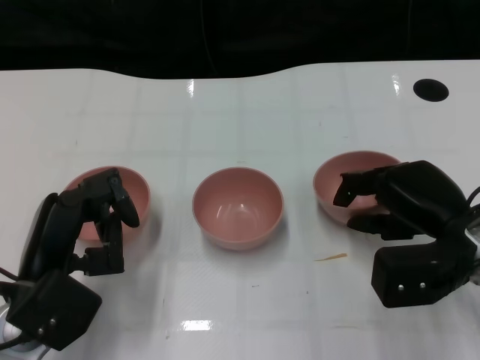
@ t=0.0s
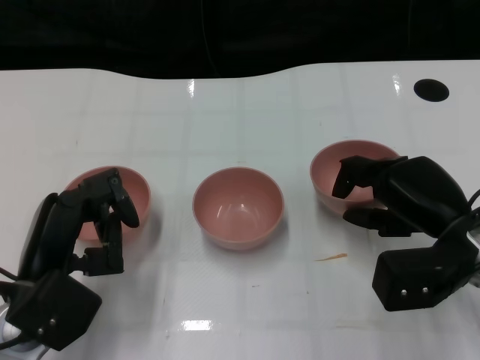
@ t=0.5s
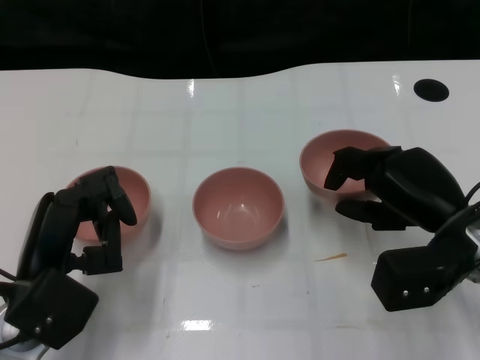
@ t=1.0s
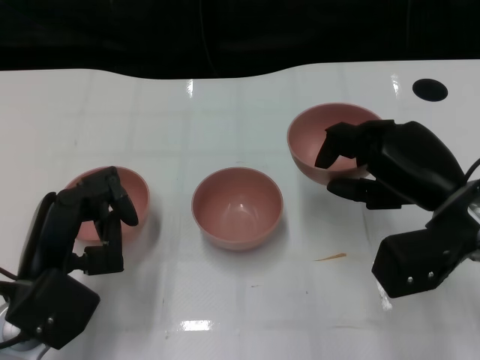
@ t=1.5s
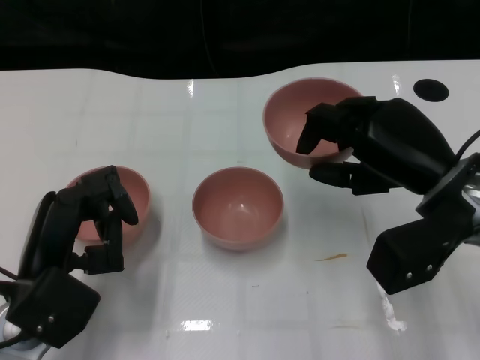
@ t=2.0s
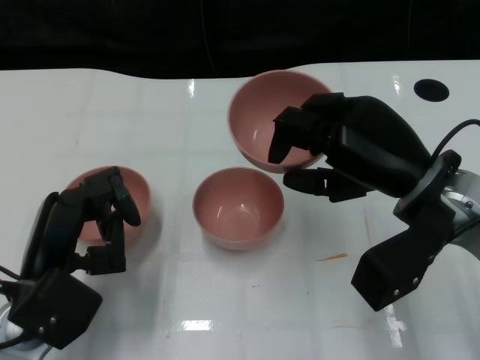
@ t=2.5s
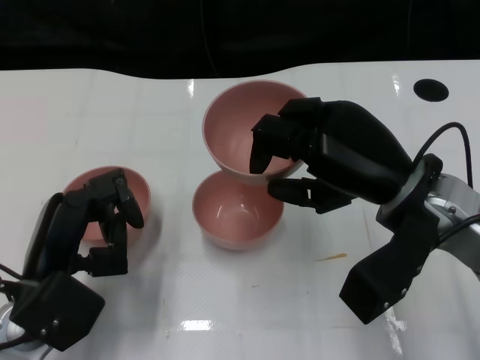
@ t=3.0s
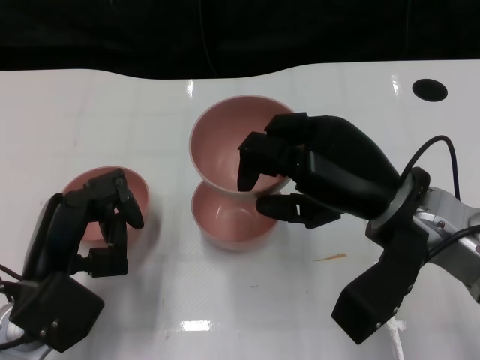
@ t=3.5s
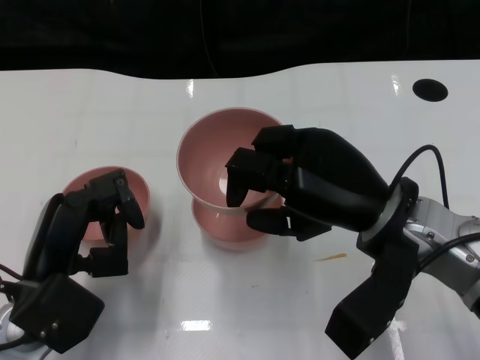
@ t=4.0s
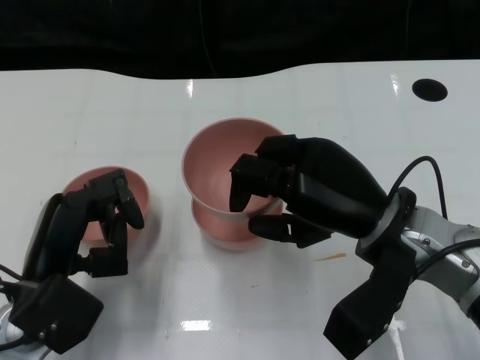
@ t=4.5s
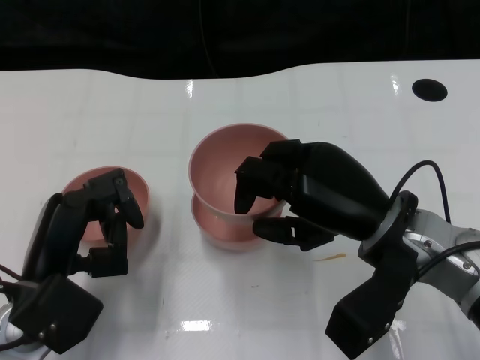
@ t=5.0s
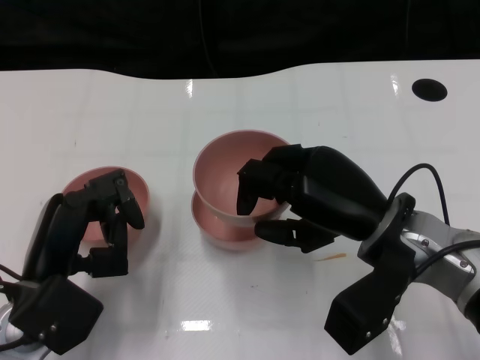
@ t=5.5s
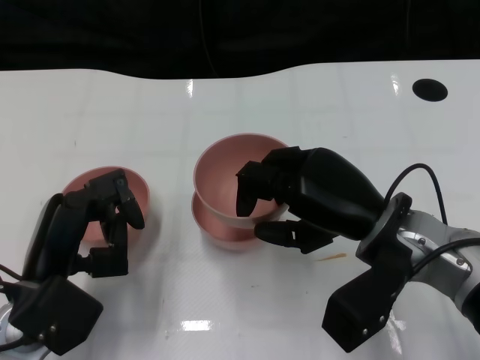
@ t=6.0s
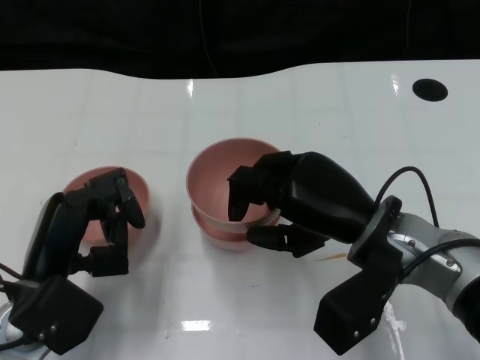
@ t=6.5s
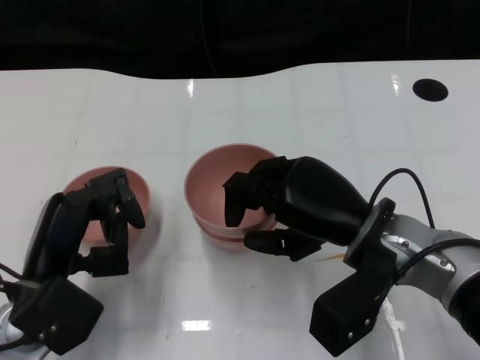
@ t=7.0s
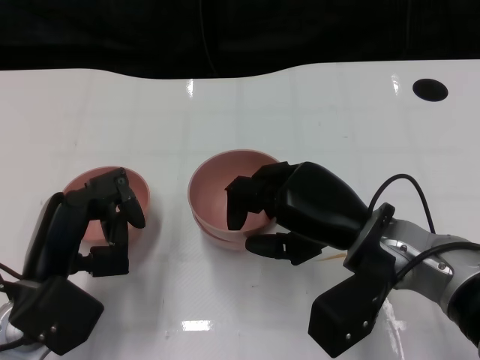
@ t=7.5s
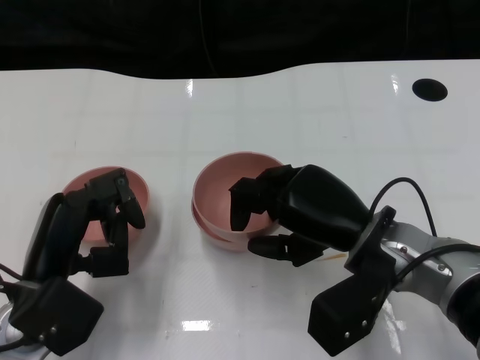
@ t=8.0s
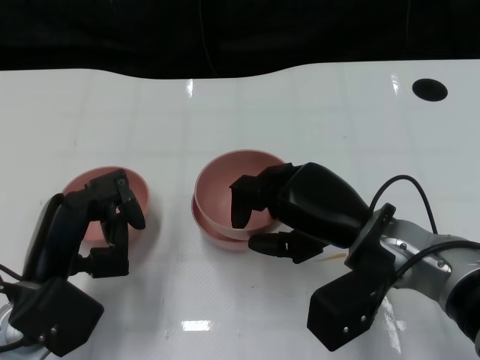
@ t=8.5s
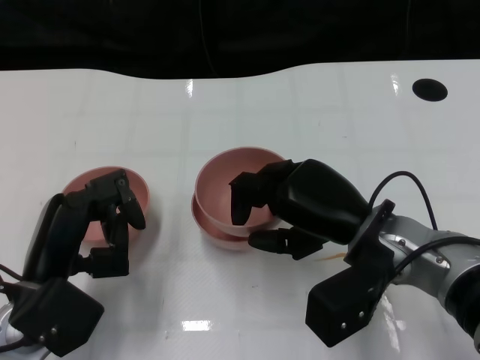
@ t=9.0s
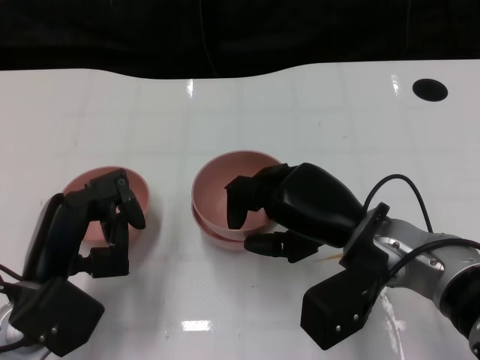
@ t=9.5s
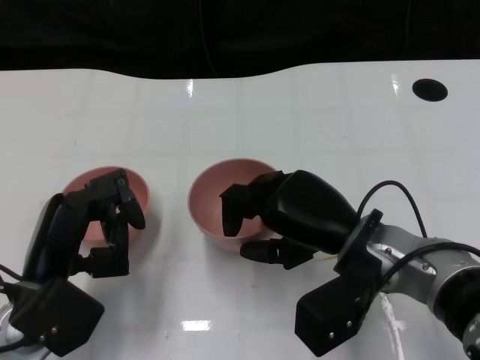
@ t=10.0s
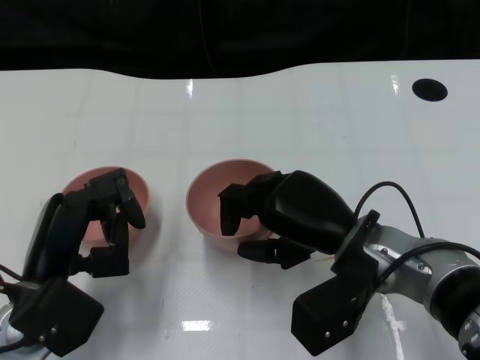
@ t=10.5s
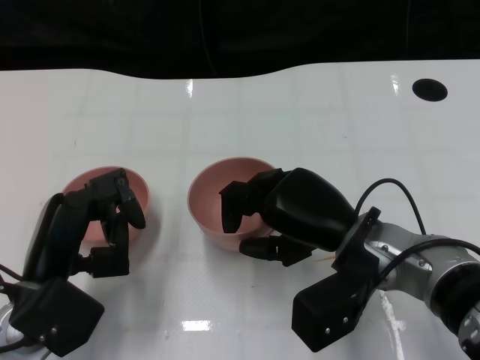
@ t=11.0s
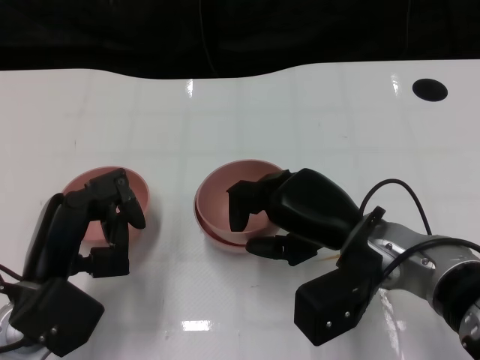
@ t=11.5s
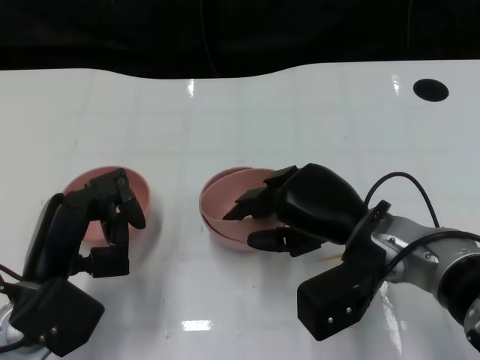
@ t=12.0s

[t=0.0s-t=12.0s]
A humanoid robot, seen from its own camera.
Task of the whole recording: Pick up the bowl on one side of the table and place it on top of the middle bowl, then pick up the bowl on the other side of the table and place it on top of the middle bowls.
t=0.0s to t=2.0s: The right hand heads upward, covering roughly 5 cm.
t=2.0s to t=4.0s: The right hand is displaced to the left by approximately 5 cm.
t=4.0s to t=8.0s: There are only small adjustments of the hands.
t=8.0s to t=10.0s: Both hands stay put.
t=10.0s to t=12.0s: The hands move only a little.

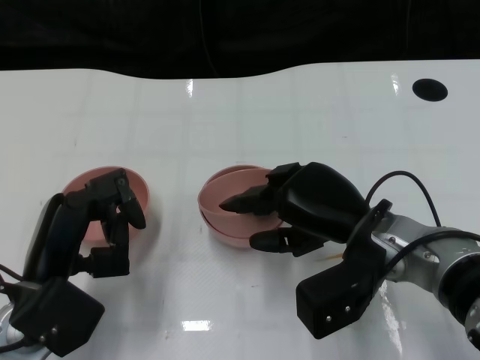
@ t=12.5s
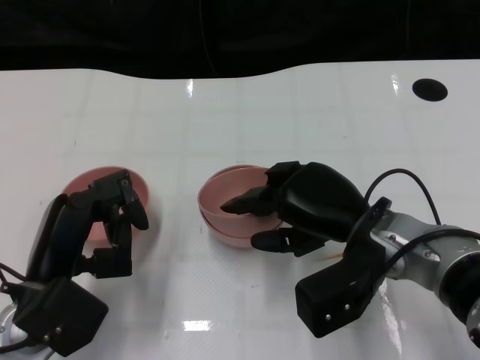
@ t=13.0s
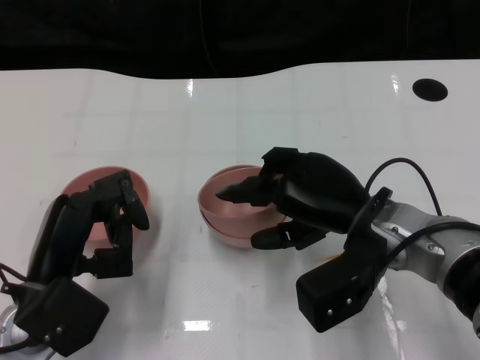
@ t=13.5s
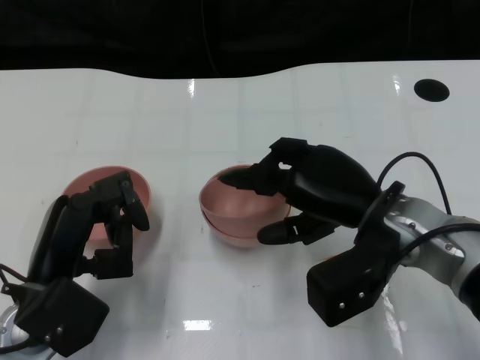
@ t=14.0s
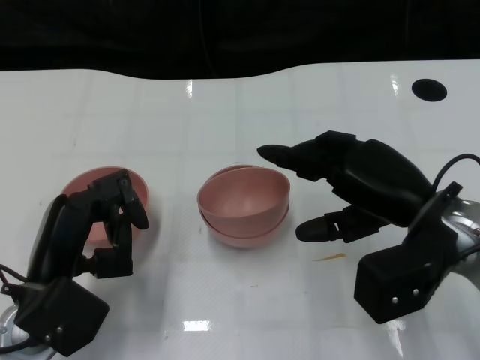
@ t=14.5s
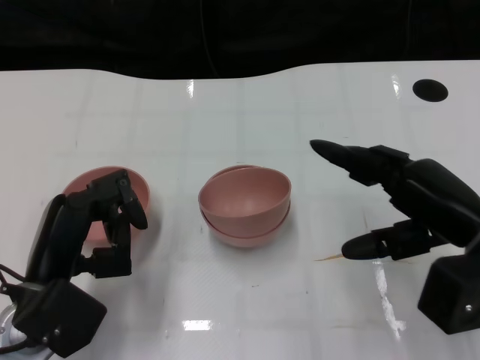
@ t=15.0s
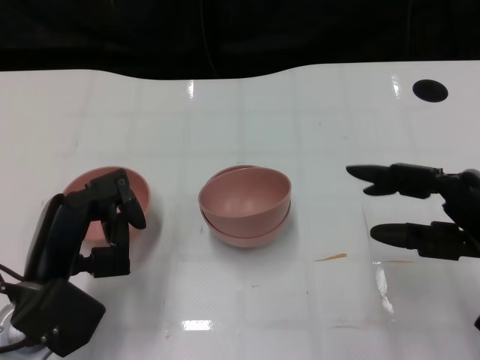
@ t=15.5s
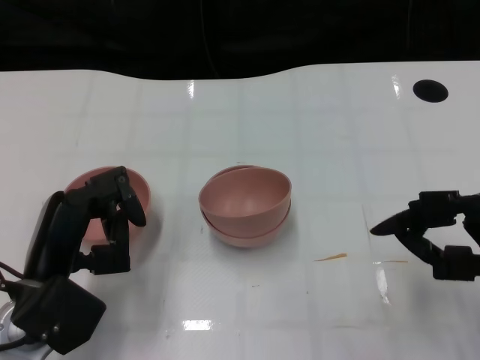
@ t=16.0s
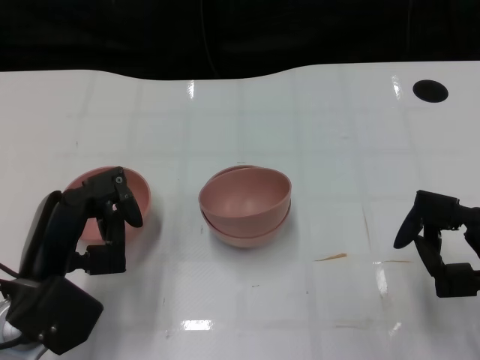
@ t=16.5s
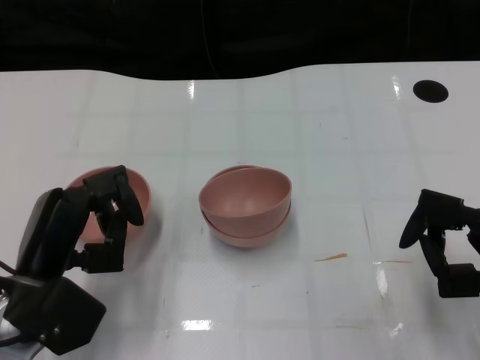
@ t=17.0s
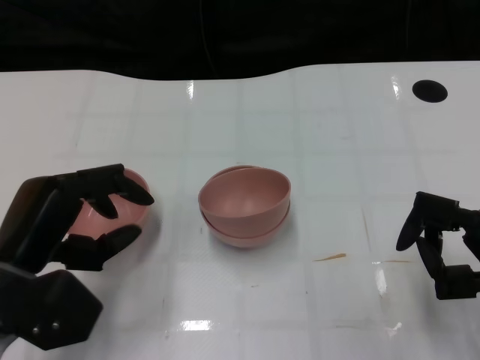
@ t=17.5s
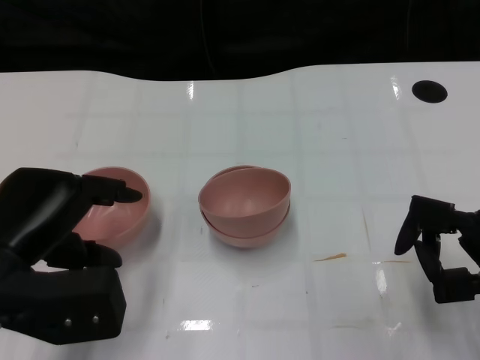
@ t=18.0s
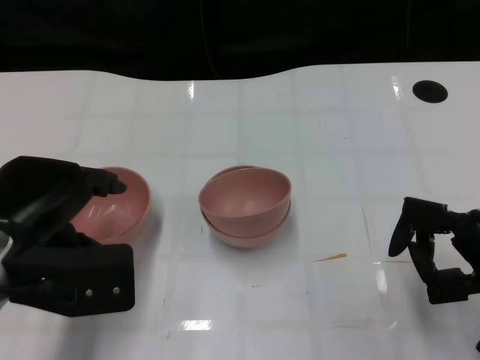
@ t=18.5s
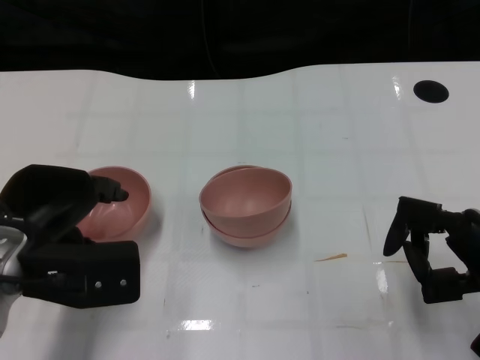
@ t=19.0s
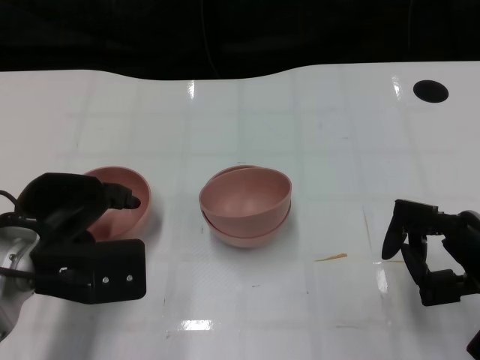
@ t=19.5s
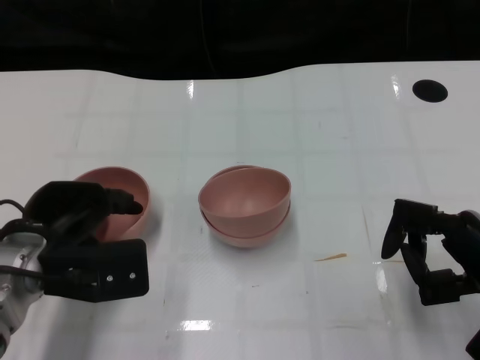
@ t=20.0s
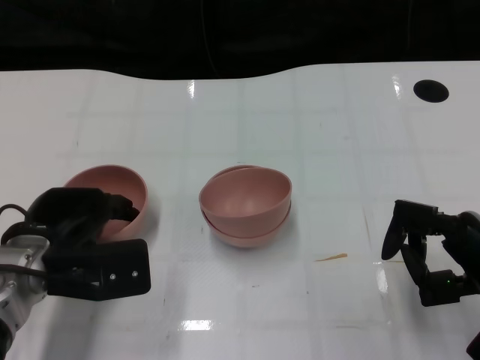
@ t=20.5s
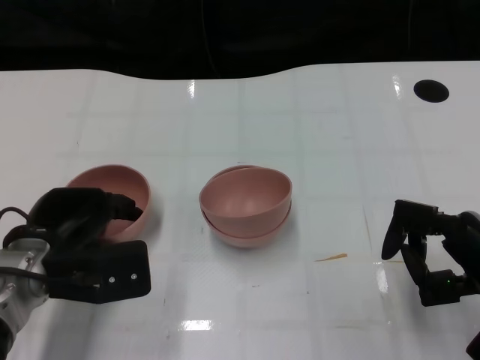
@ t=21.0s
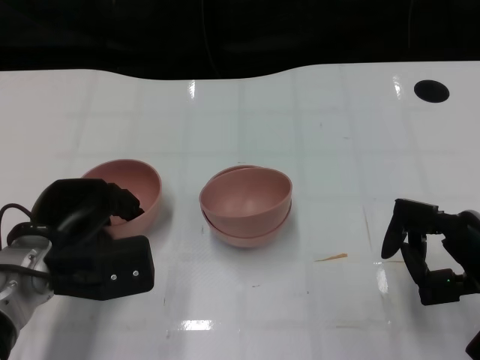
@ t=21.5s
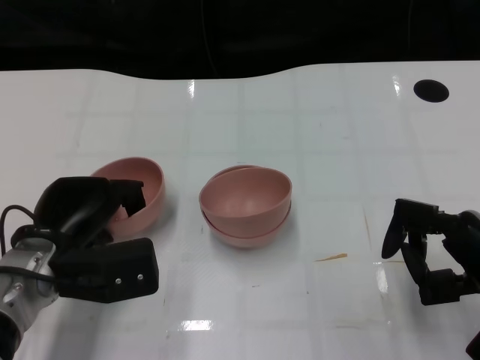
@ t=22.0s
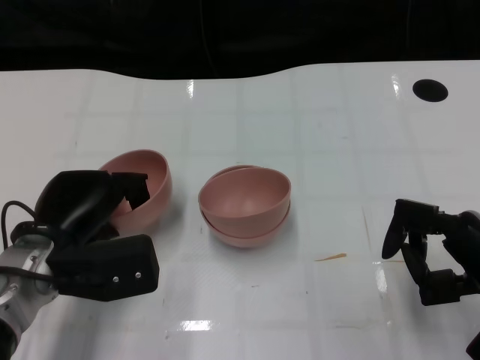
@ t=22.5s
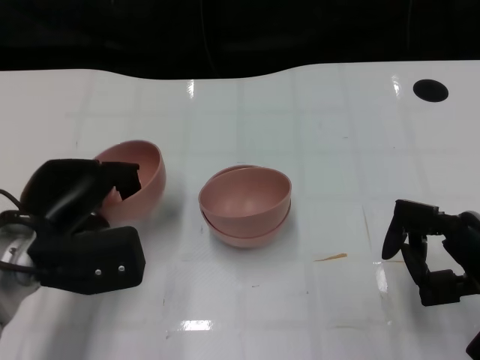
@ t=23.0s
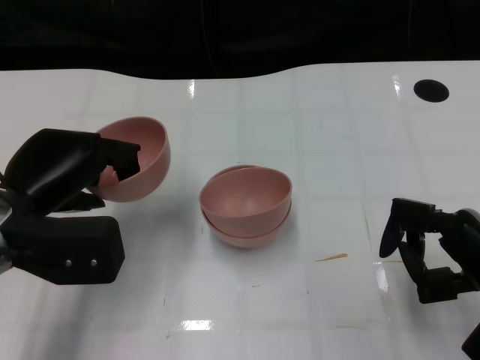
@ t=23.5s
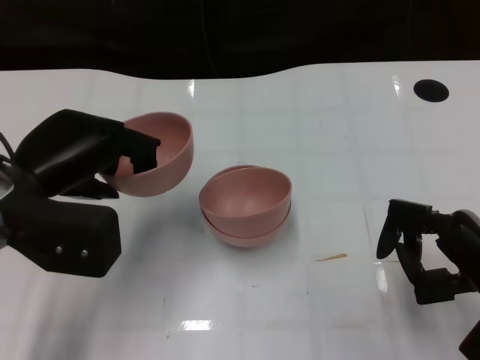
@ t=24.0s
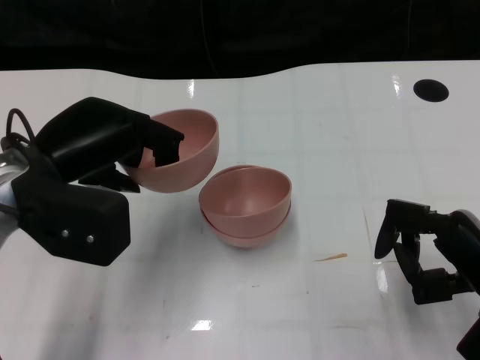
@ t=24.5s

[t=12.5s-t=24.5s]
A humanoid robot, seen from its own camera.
Task of the whole recording: Pick up the bowl on one side of the table and place it on top of the middle bowl, then pick up the bowl on the other side of the table and place it on top of the middle bowls.
Step, t=14.5s to t=22.0s: Grasp the bowl on the left with the left gripper.
t=12.5s to t=14.5s: The right hand heads to the right, covering roughly 5 cm.
t=14.5s to t=16.5s: The right hand shifts about 15 cm to the right, backward and downward.
t=16.5s to t=18.5s: The left hand moves upward, approximately 10 cm.
t=18.5s to t=20.5s: The left hand goes some 5 cm downward.
t=20.5s to t=22.5s: The hands make only small movements.
t=22.5s to t=24.5s: The left hand heads upward, covering approximately 10 cm.

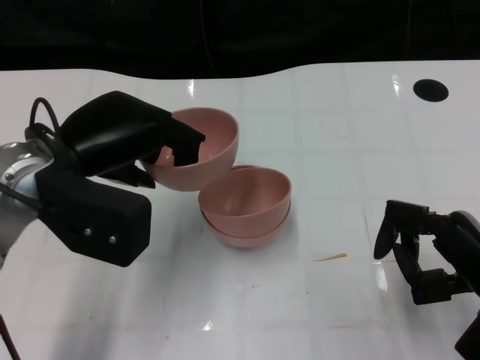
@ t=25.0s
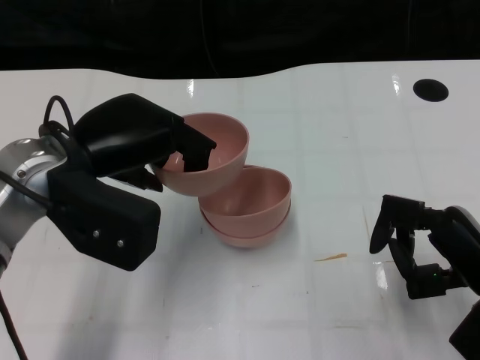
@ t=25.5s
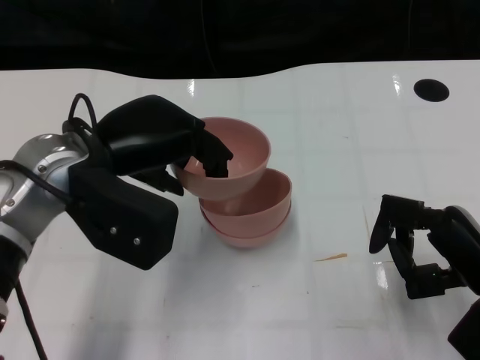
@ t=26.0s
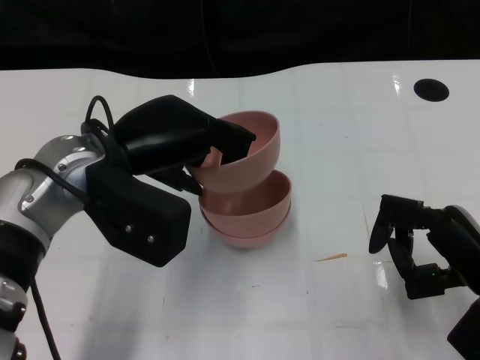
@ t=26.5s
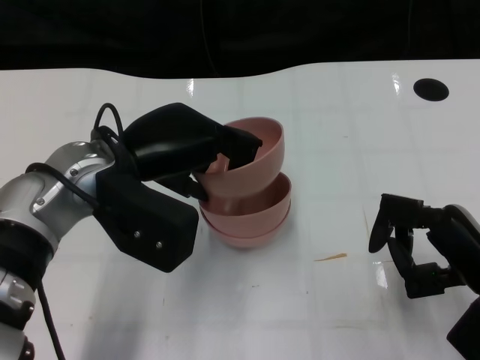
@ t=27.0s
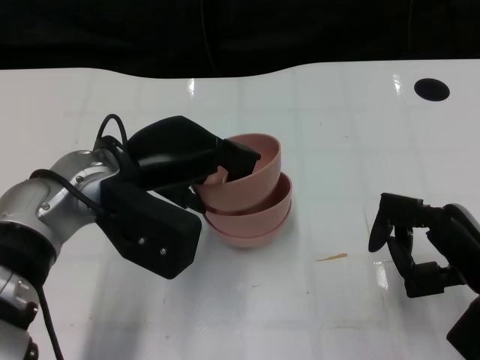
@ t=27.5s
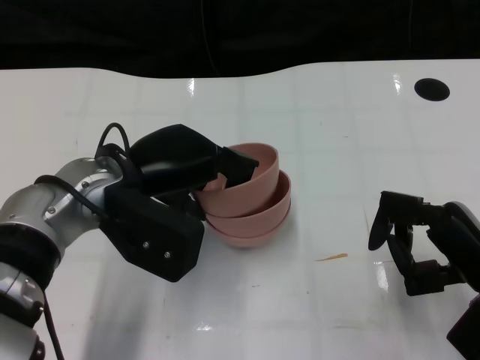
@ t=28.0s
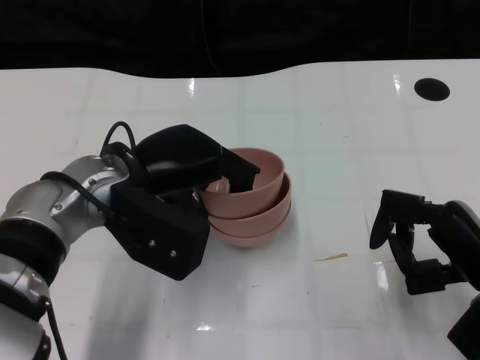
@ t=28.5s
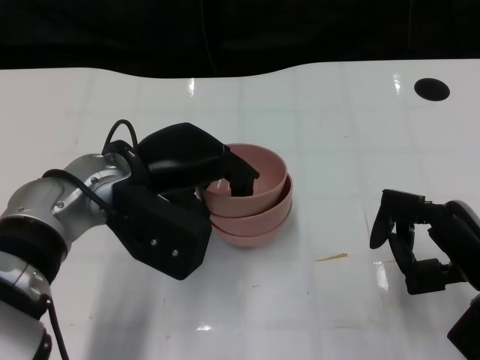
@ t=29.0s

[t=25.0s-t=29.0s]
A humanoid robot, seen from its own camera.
Task of the whole recording: Pick up the bowl on one side of the table and place it on top of the middle bowl, then pick up the bowl on the other side of the table and place it on top of the middle bowls.
t=27.0s to t=29.0s: The hands stay close to where they were, moving slightly.
